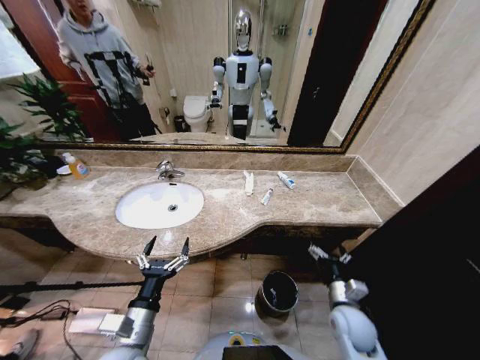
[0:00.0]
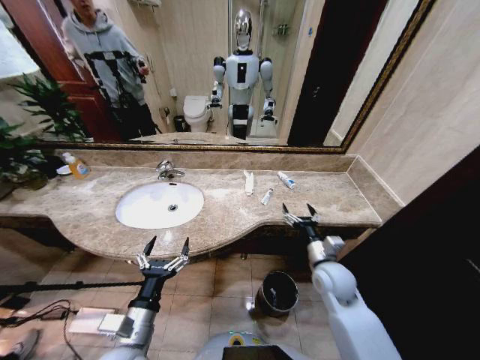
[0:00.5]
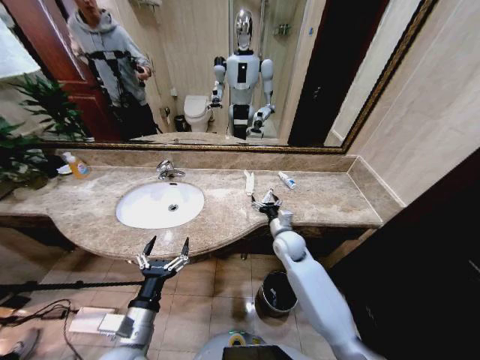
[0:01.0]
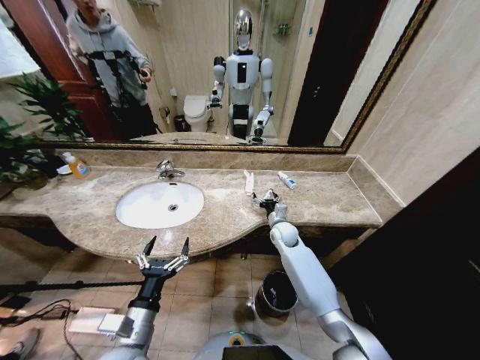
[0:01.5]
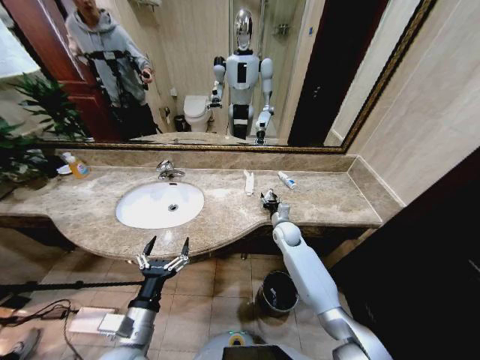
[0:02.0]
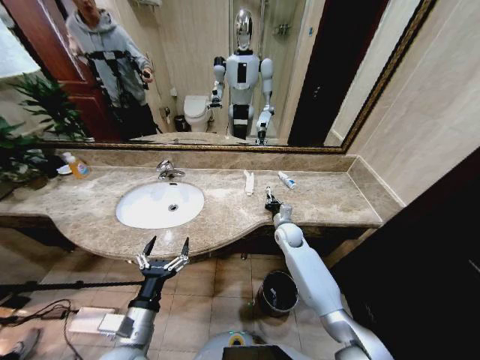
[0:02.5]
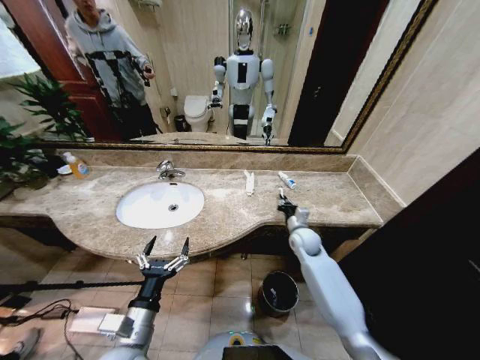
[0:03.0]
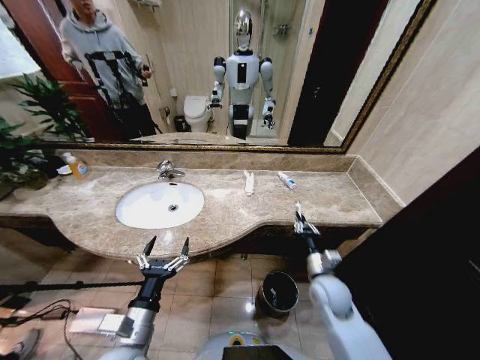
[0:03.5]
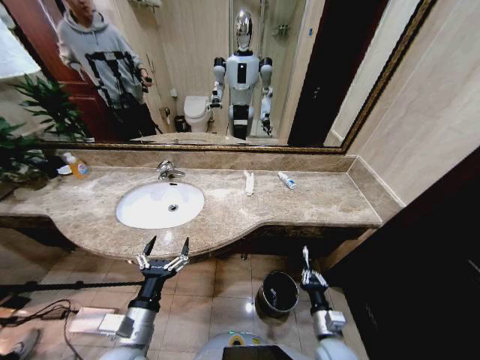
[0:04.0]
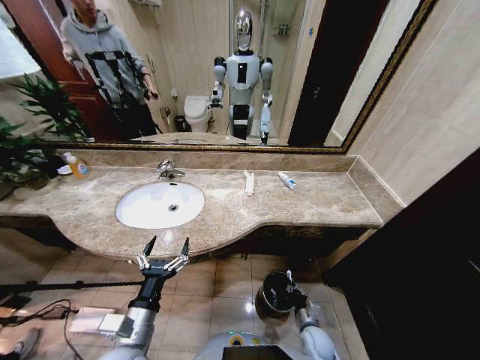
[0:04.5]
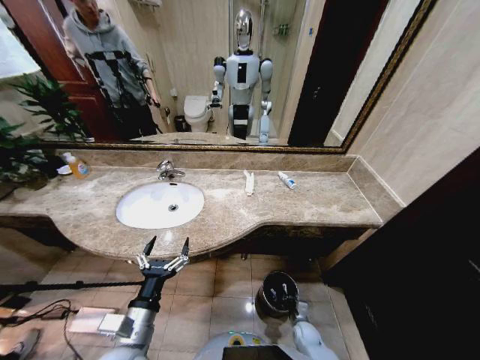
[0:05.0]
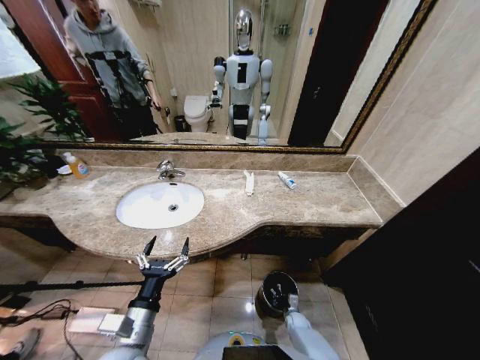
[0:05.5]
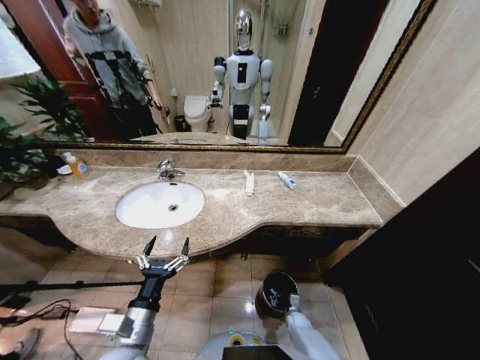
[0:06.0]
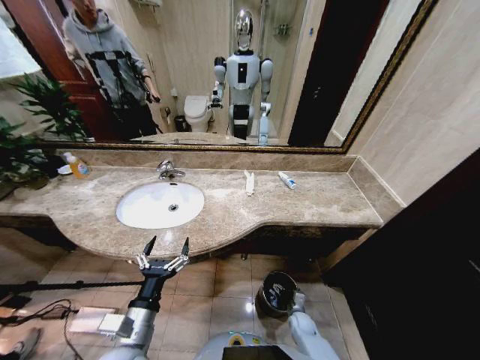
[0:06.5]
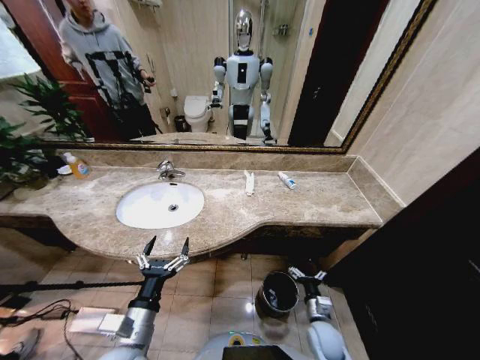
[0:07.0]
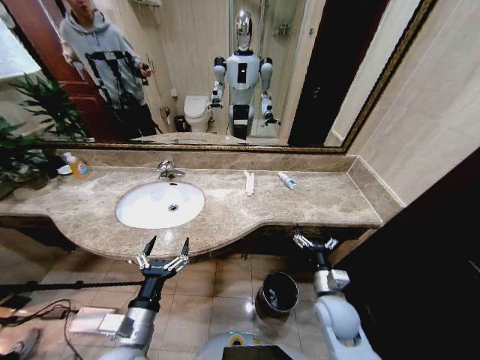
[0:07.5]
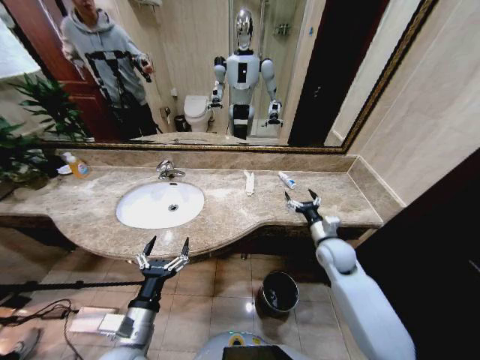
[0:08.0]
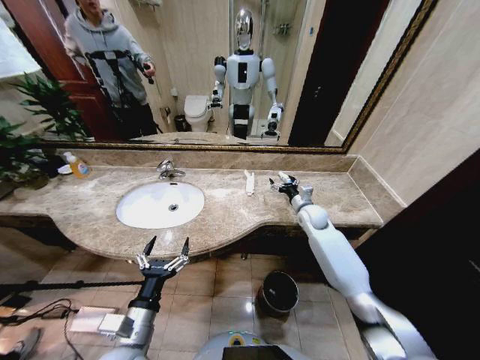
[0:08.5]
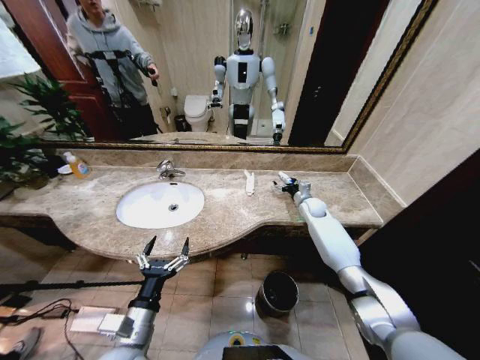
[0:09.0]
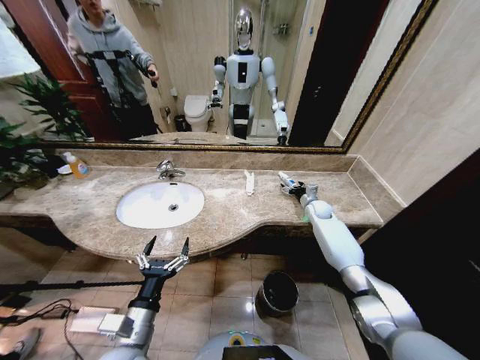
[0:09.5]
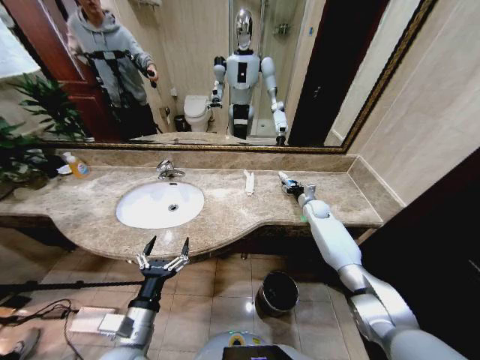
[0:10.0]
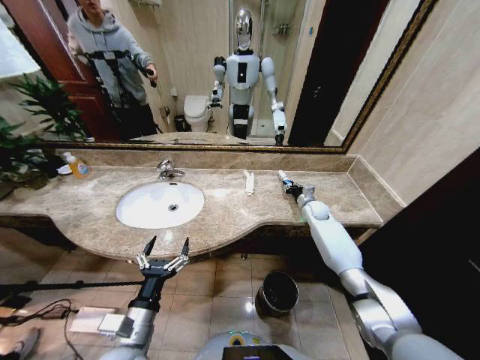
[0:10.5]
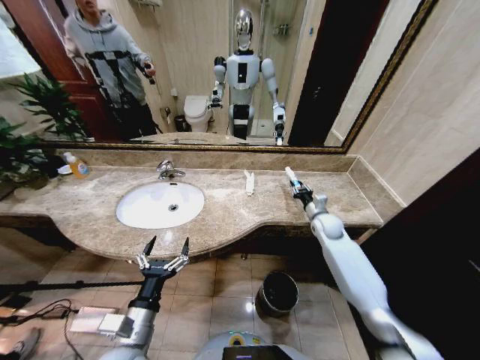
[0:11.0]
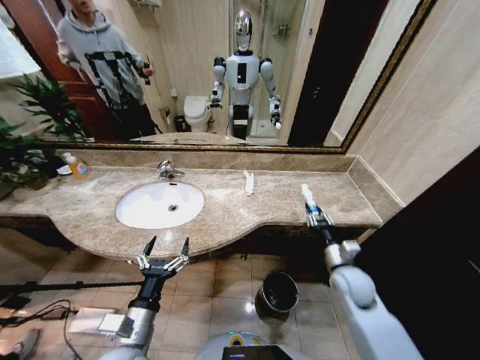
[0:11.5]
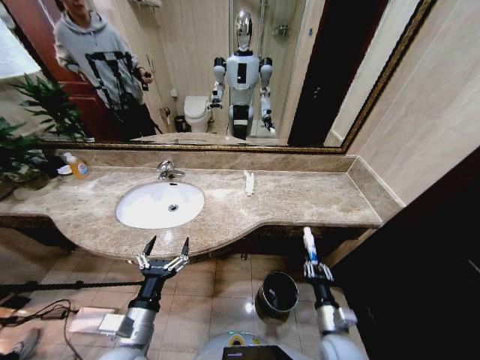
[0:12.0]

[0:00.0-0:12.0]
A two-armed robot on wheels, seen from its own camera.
Task of the whole recording: Pick up the trash from the sink and place it in the trash bin.
0:00.0 to 0:02.0: The right gripper goes roughly 30 cm forward.
0:02.0 to 0:04.0: The right gripper heads backward, covering approximately 35 cm, and closes its fingers.
0:04.0 to 0:06.0: The right gripper heads downward and forward, covering approximately 25 cm.
0:06.0 to 0:08.0: The right gripper moves upward, about 40 cm, and opens its fingers.
0:08.0 to 0:10.0: The right gripper travels forward by some 20 cm, and closes up.
0:10.0 to 0:12.0: The right gripper travels backward by roughly 40 cm, and closes its fingers.

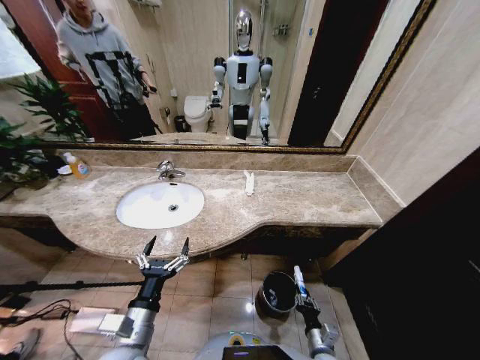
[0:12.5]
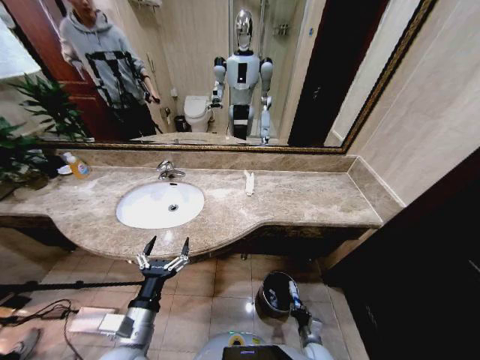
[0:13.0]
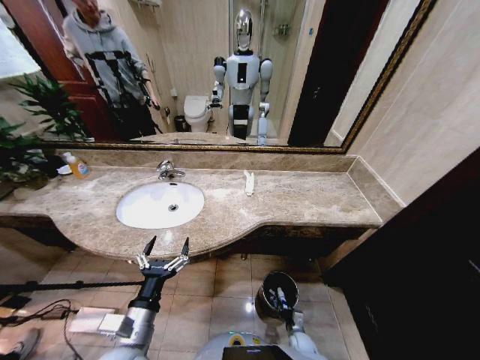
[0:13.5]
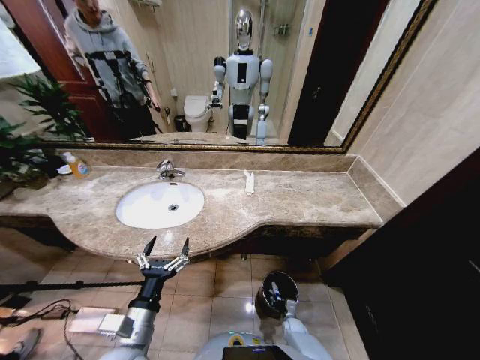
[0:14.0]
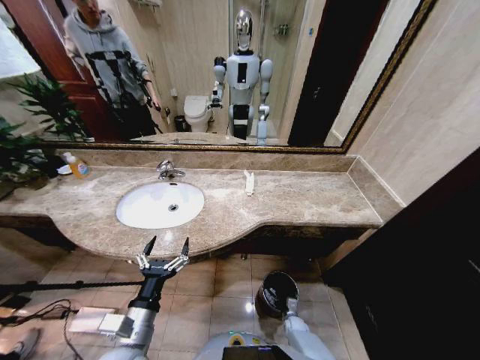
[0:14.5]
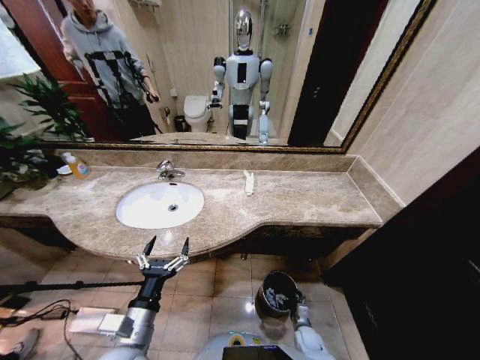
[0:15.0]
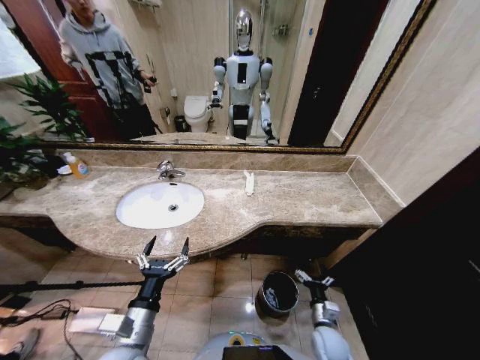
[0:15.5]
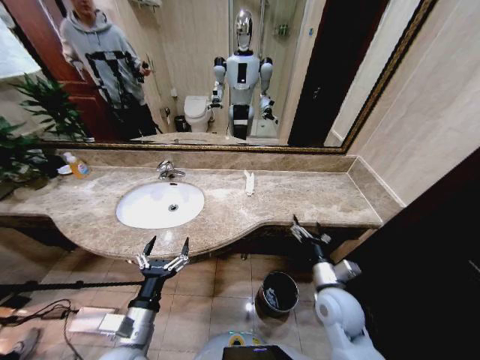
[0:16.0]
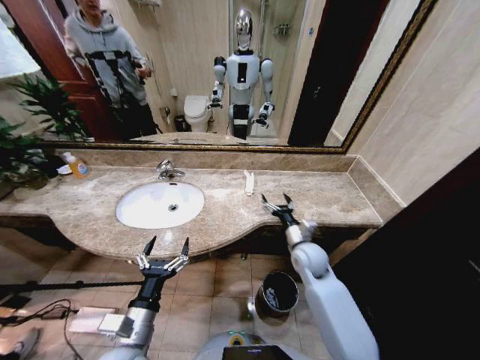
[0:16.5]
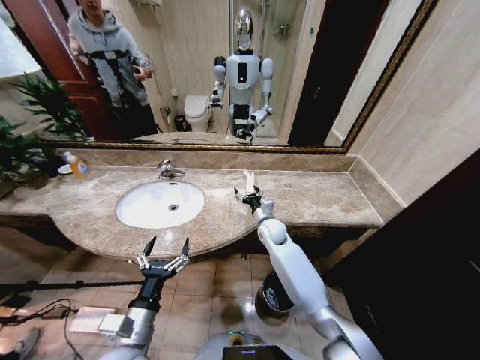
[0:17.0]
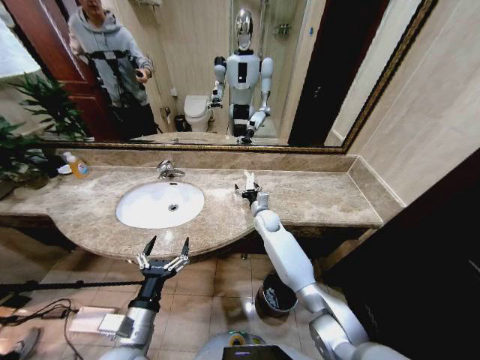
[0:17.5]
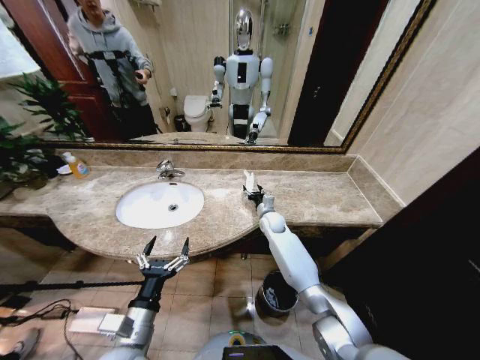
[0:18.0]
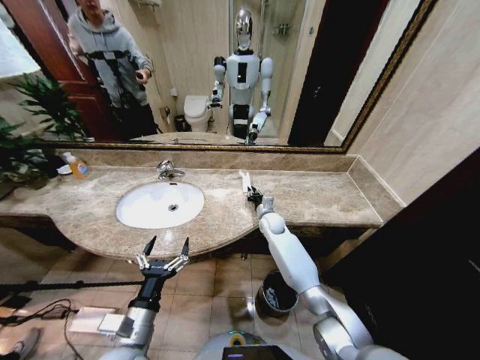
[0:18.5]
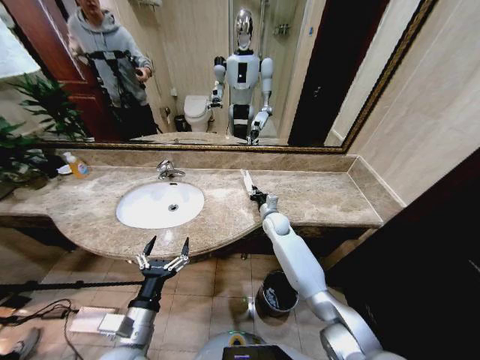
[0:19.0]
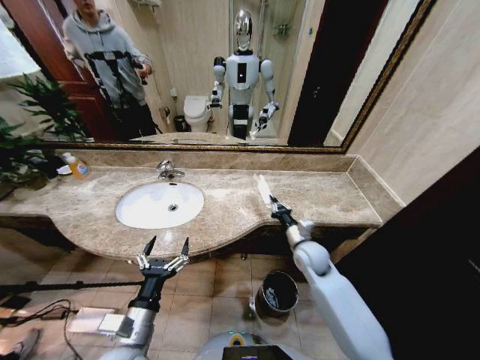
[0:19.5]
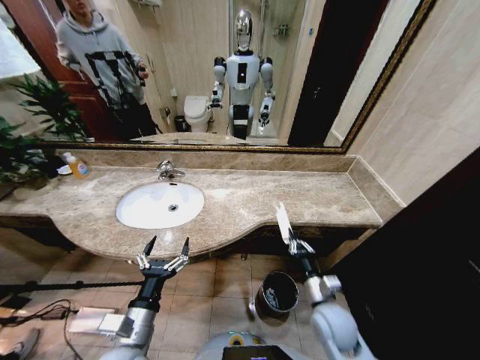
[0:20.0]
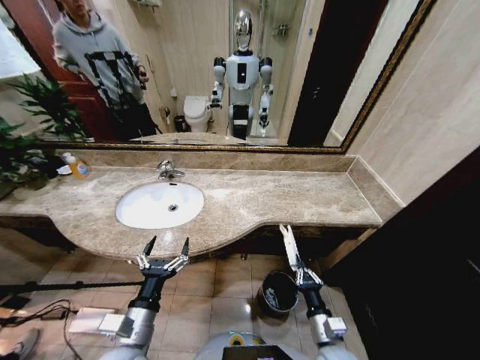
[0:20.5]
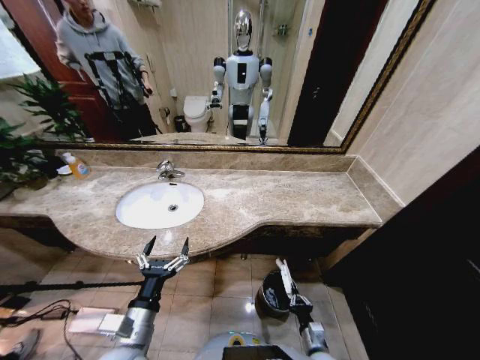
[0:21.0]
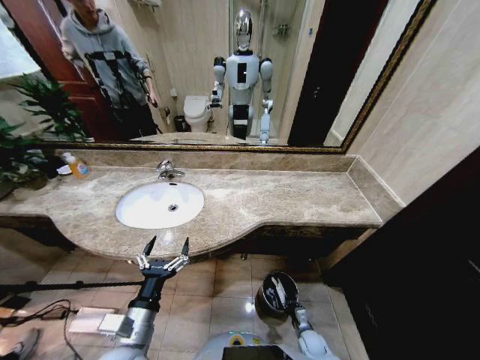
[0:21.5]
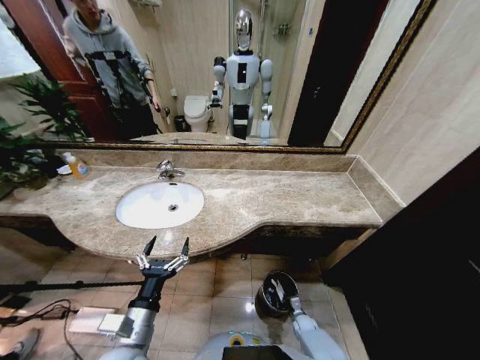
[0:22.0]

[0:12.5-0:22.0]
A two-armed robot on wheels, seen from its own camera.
Task of the whole recording: Pick up the trash from the sink and place it in the trash bin.
0:12.5 to 0:14.5: The right gripper moves downward and forward, some 20 cm, and opens up.
0:14.5 to 0:16.5: The right gripper moves upward, approximately 40 cm, and opens up.
0:16.5 to 0:18.0: The right gripper goes roughly 20 cm forward.
0:18.0 to 0:20.0: The right gripper moves backward, about 30 cm, and closes.
0:20.0 to 0:22.0: The right gripper shifts roughly 35 cm downward.

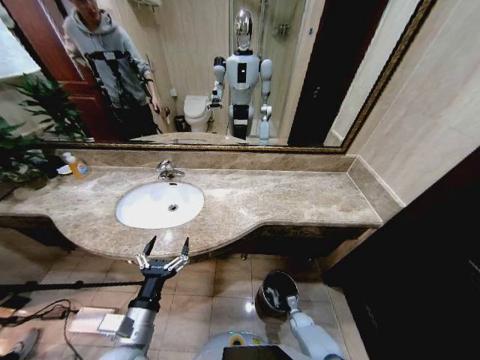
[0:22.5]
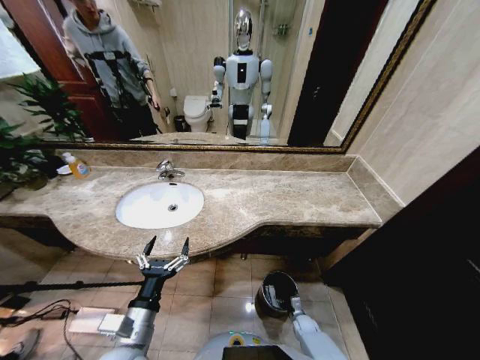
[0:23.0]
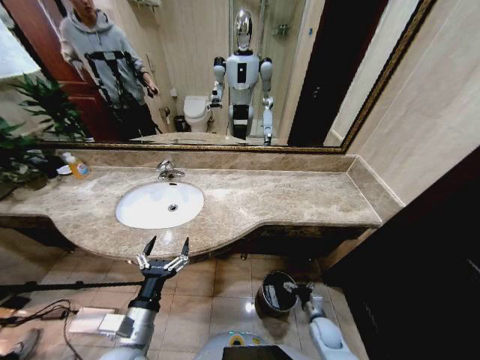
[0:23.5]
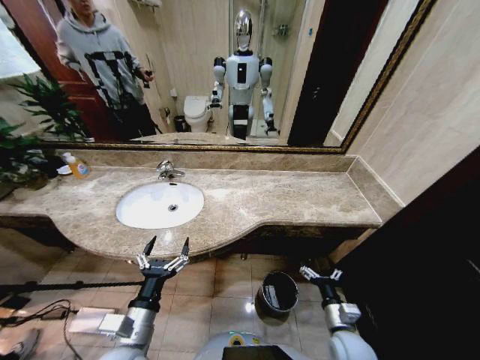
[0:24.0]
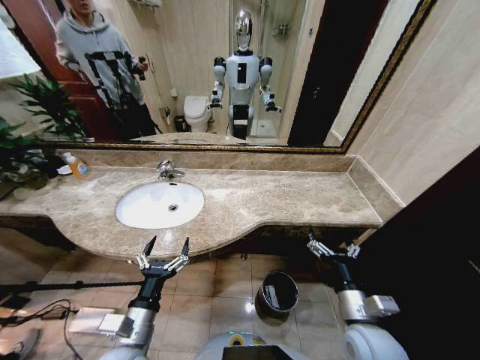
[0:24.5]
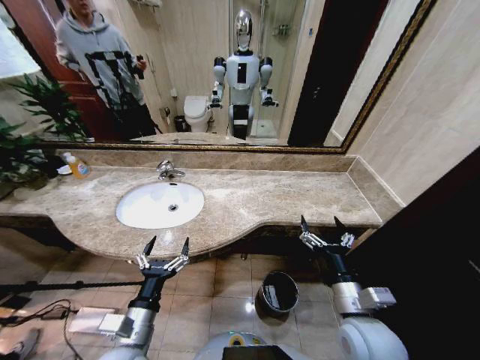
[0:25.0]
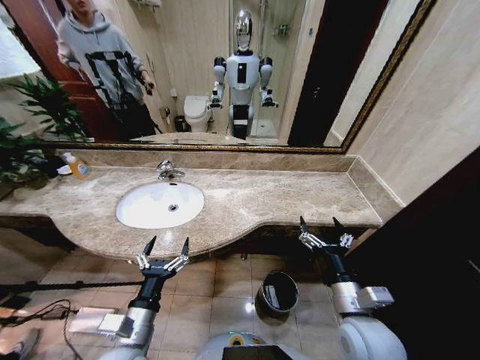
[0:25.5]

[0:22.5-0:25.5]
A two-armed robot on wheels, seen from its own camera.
Task of the whole recording: Pick up the trash from the sink and place it in the trash bin.
0:22.5 to 0:24.0: The right gripper goes some 25 cm upward, and opens its fingers.
0:24.0 to 0:25.5: The right gripper moves upward, some 15 cm.
